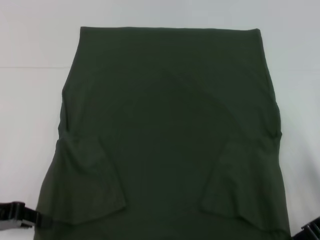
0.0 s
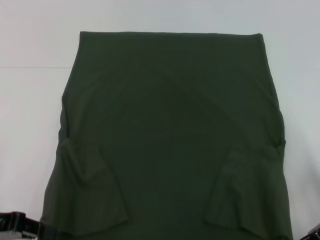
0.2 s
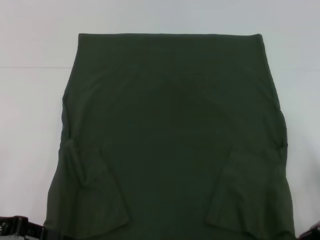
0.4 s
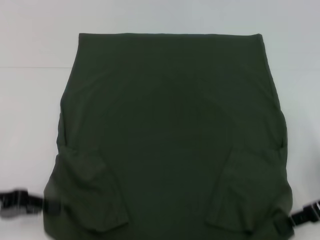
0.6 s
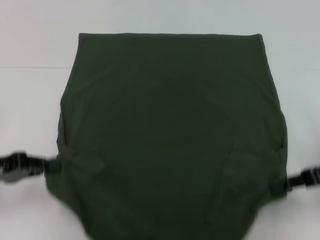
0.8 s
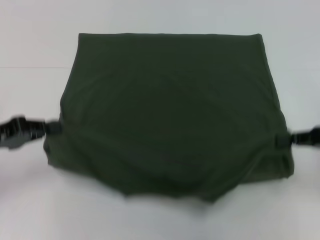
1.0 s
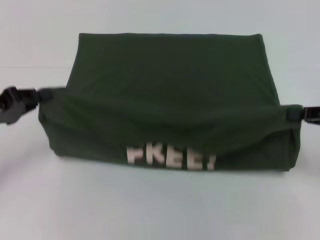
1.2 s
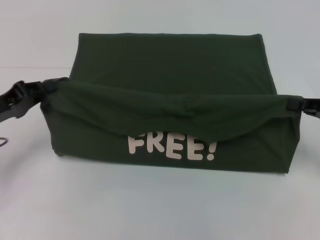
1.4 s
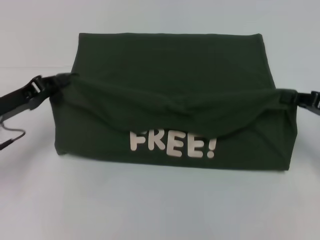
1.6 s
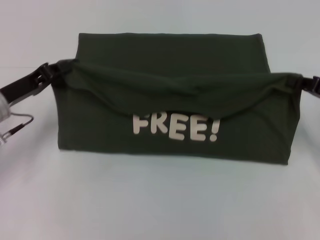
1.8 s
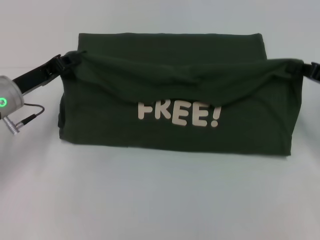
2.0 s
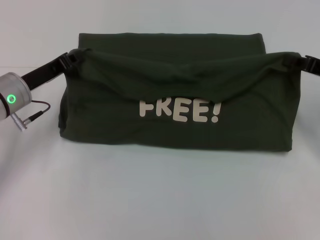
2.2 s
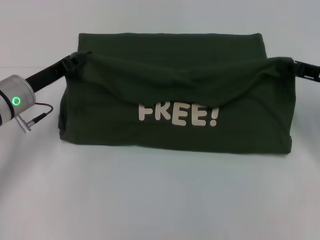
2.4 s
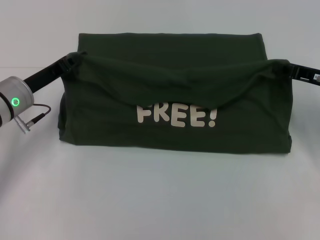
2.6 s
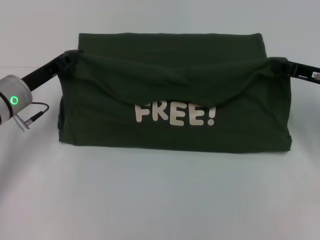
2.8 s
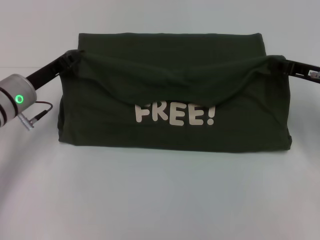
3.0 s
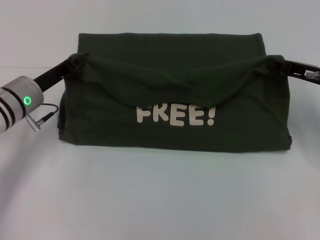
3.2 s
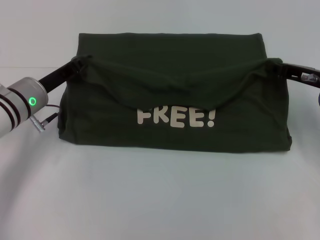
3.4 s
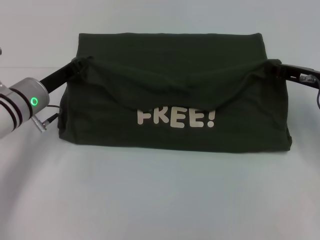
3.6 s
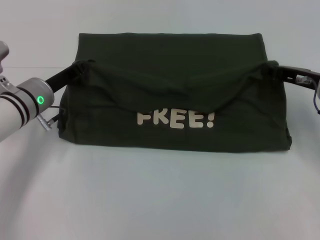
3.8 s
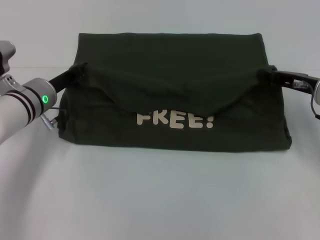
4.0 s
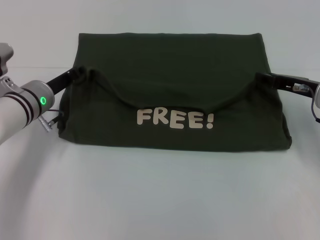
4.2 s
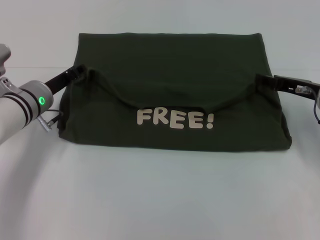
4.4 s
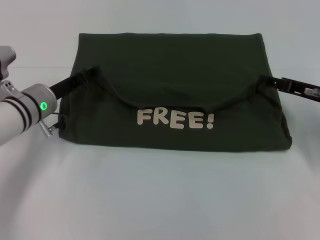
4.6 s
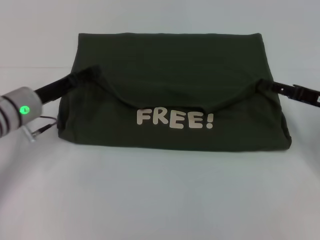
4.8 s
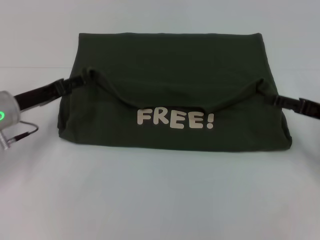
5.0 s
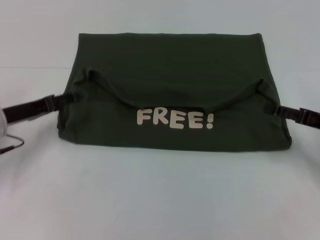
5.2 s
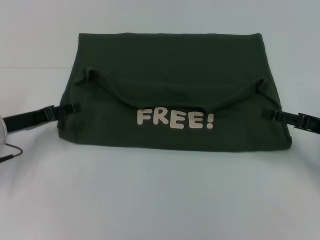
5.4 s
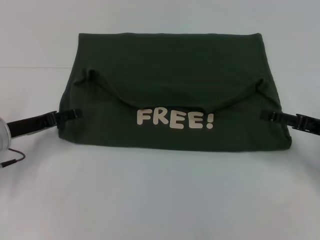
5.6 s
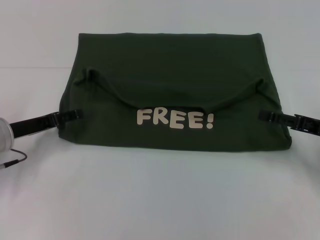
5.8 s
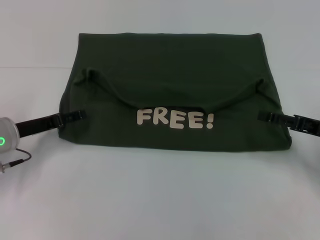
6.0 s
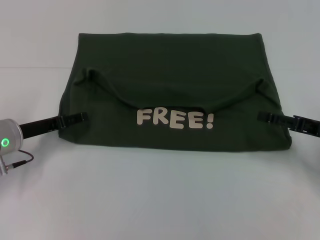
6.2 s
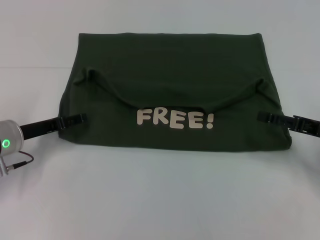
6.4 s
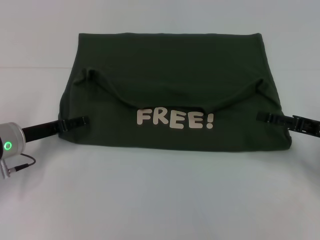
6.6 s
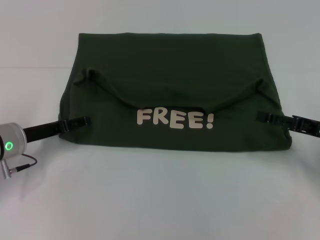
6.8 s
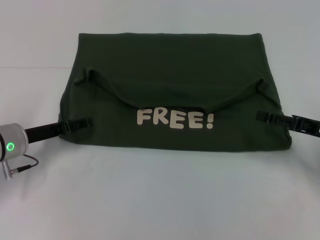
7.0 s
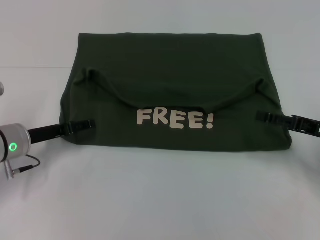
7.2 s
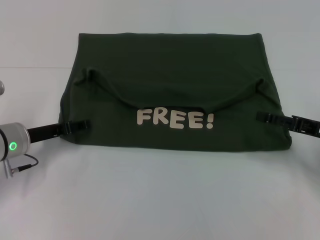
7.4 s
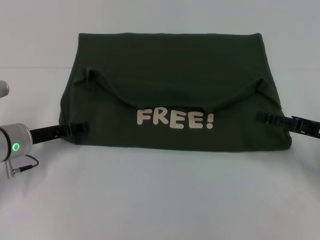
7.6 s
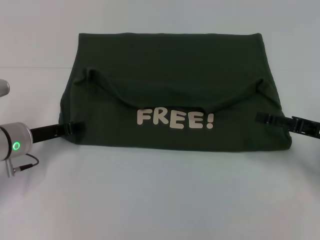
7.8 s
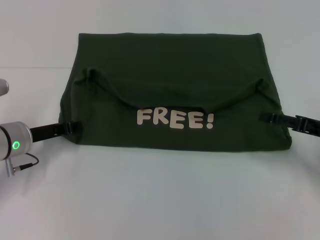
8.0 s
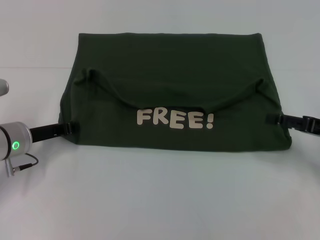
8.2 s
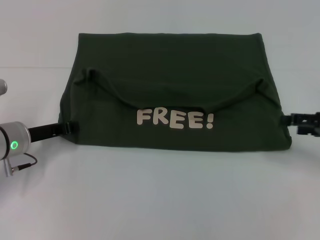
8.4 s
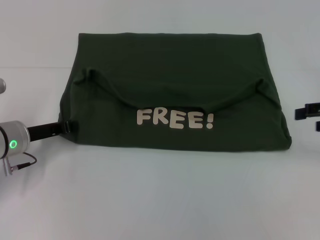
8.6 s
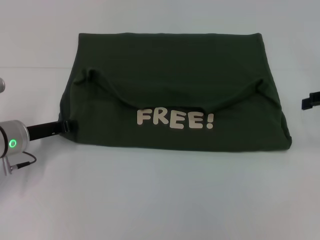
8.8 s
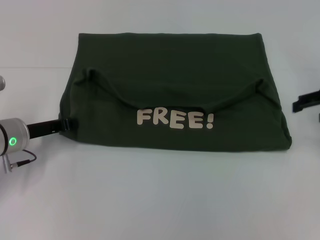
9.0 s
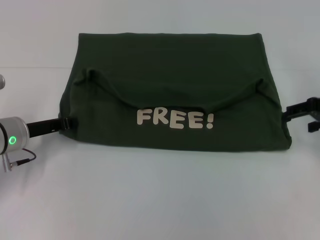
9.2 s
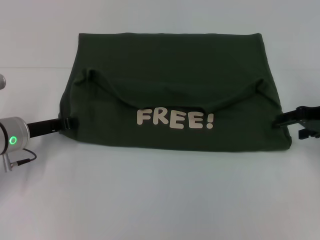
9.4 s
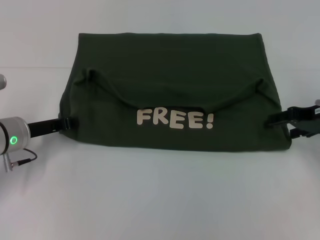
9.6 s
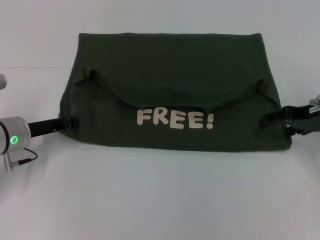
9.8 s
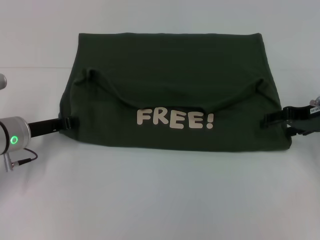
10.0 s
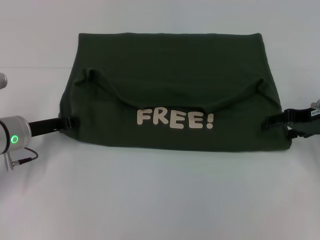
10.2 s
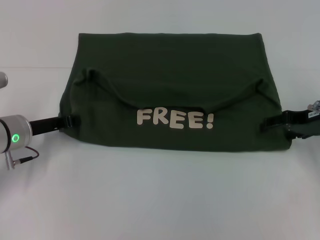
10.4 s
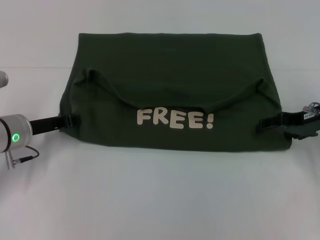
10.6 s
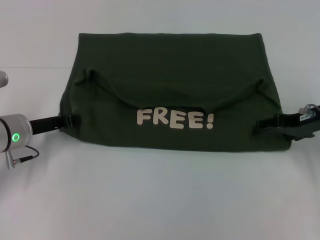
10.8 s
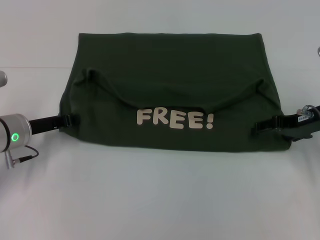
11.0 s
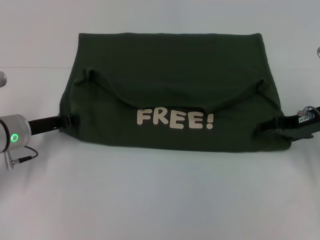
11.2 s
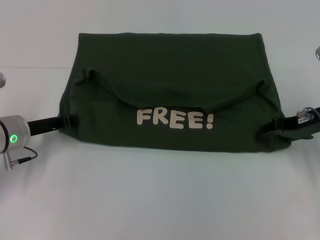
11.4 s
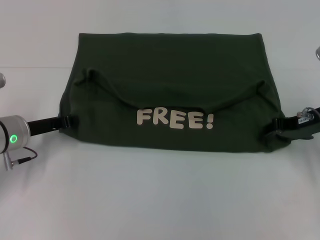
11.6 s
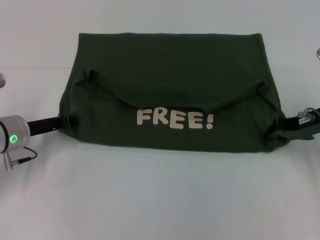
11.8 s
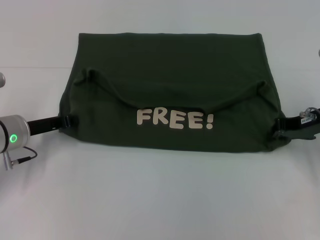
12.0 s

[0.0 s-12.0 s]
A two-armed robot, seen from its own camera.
Step, 0.0 to 4.2 s: Fold the clothes with your left hand.
Step, 0.0 to 4.2 s: Fold the clothes with your right hand.
0.0 to 1.6 s: The right gripper shifts by about 5 cm, while the left gripper shifts approximately 10 cm forward.
1.6 to 3.0 s: Both grippers move forward, about 5 cm.
3.0 to 4.4 s: The left gripper opens. Meanwhile the right gripper opens up.
4.4 to 6.0 s: The left gripper shifts about 10 cm to the left and backward, and opens its fingers. Meanwhile the right gripper moves backward, approximately 5 cm, and opens.
6.0 to 7.6 s: There are only small adjustments of the grippers.
7.6 to 9.0 s: The right gripper travels upward and forward by about 10 cm. Meanwhile the left gripper closes.
9.0 to 10.4 s: The right gripper shifts approximately 5 cm downward.
10.4 to 12.0 s: The right gripper closes its fingers.

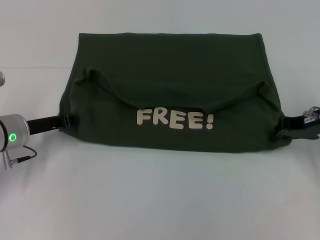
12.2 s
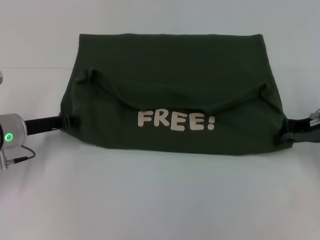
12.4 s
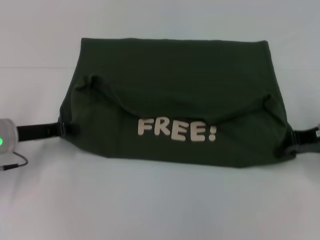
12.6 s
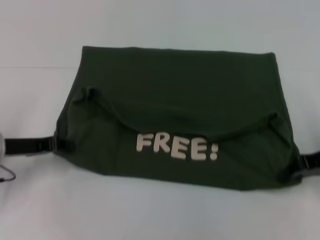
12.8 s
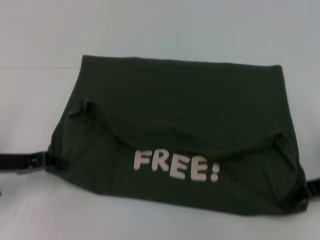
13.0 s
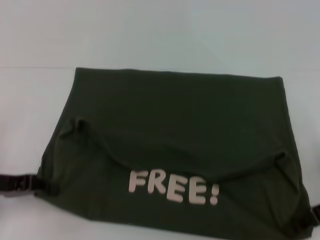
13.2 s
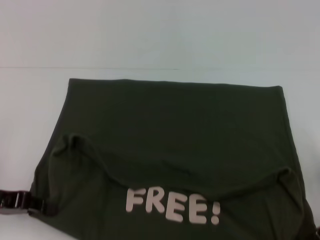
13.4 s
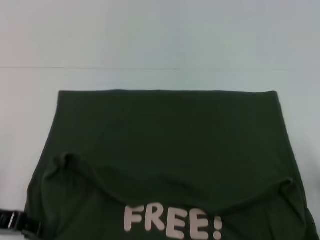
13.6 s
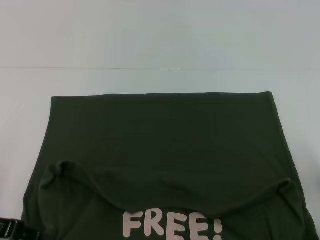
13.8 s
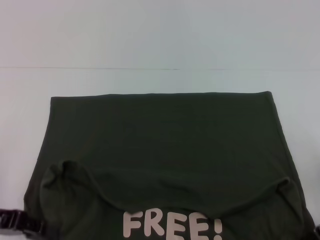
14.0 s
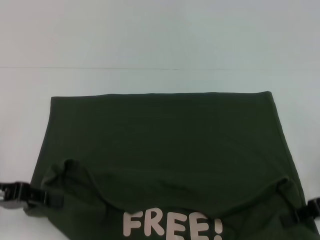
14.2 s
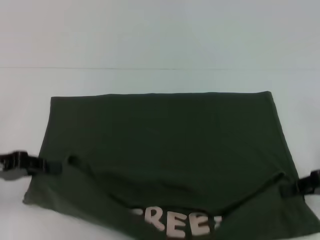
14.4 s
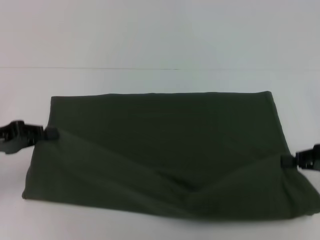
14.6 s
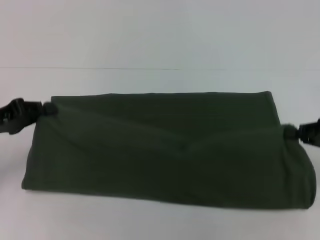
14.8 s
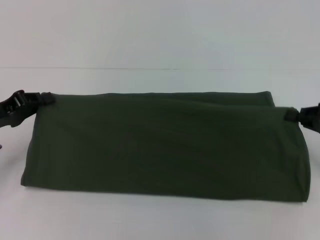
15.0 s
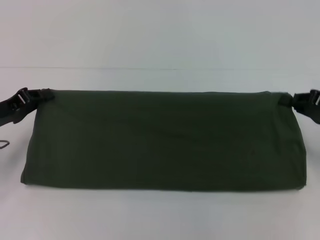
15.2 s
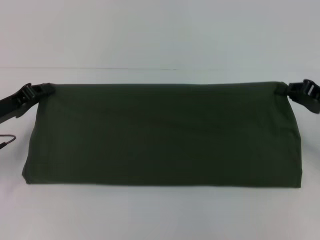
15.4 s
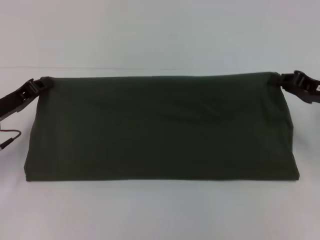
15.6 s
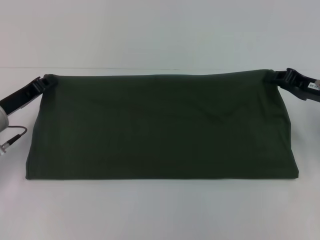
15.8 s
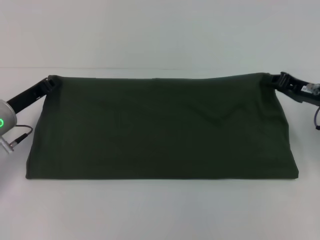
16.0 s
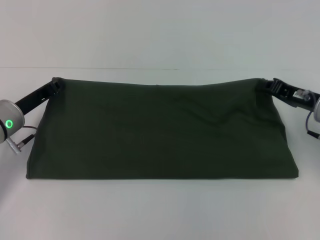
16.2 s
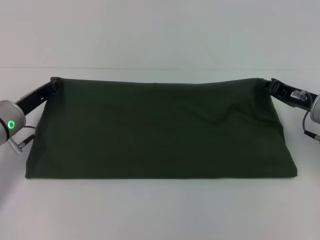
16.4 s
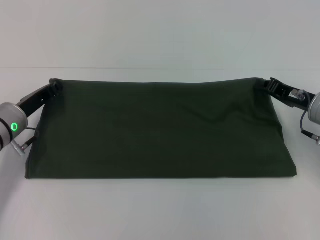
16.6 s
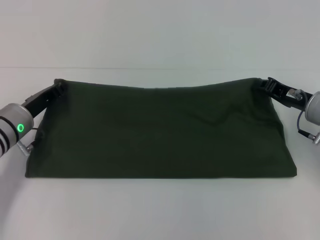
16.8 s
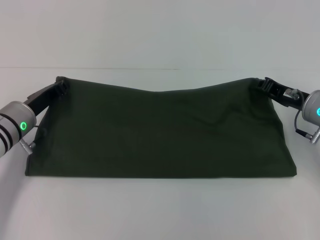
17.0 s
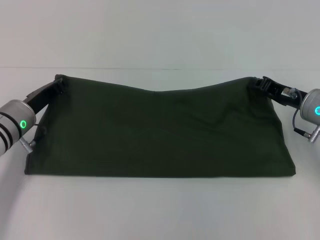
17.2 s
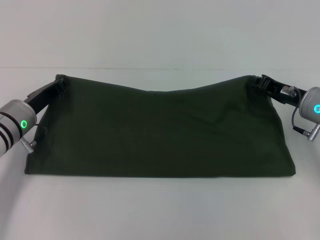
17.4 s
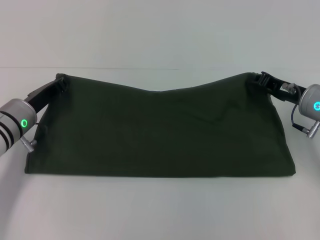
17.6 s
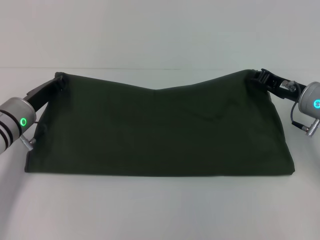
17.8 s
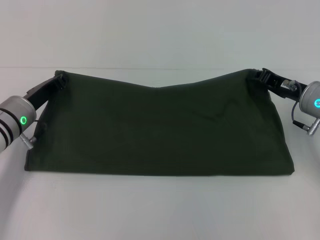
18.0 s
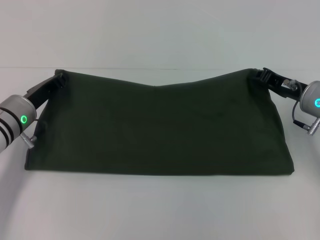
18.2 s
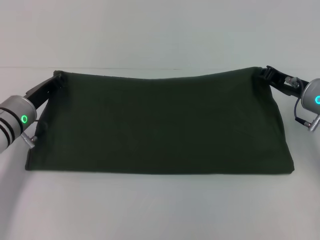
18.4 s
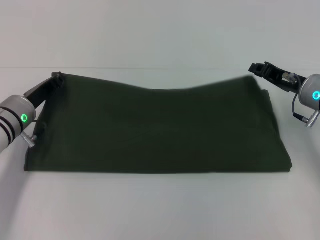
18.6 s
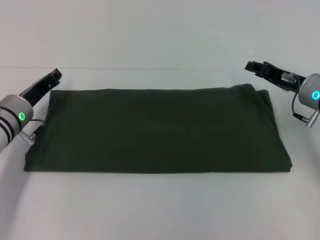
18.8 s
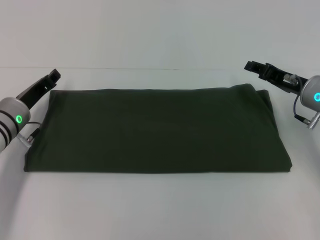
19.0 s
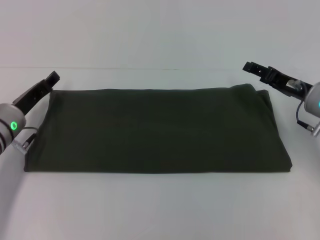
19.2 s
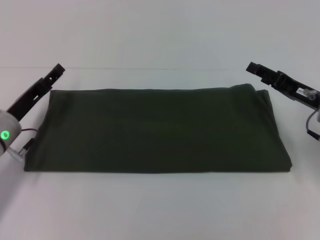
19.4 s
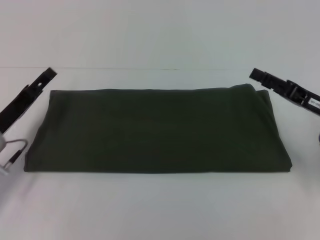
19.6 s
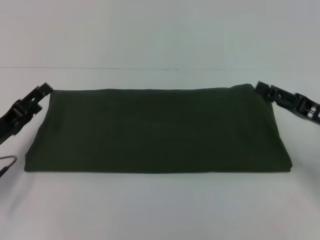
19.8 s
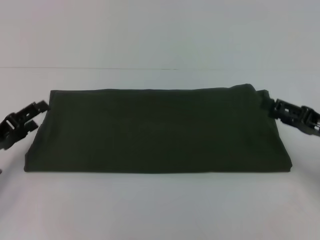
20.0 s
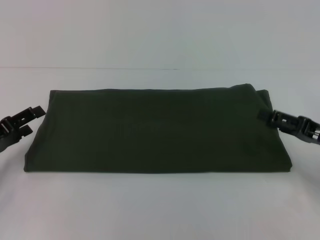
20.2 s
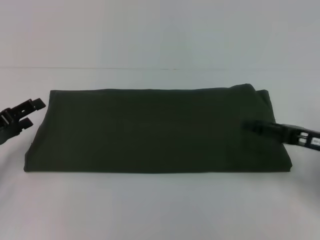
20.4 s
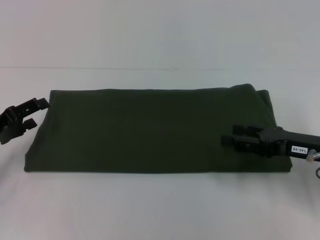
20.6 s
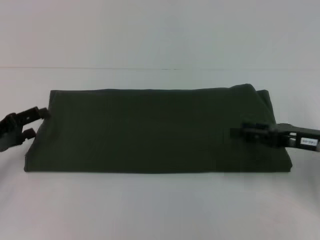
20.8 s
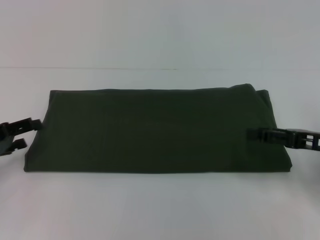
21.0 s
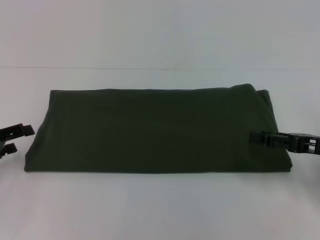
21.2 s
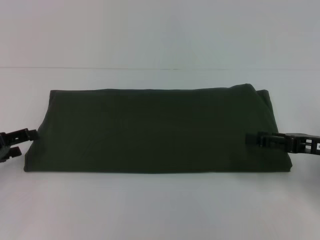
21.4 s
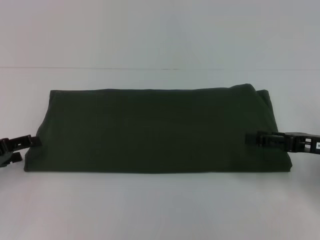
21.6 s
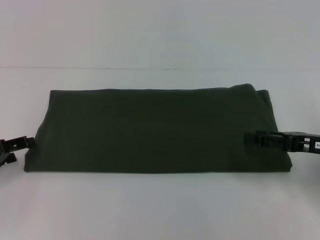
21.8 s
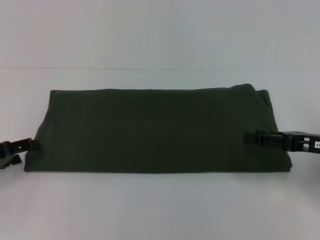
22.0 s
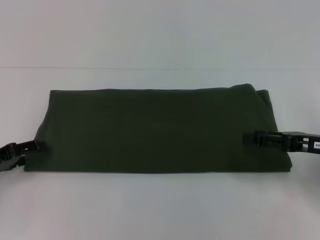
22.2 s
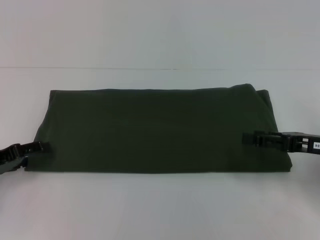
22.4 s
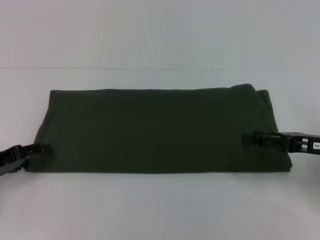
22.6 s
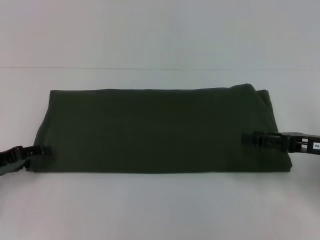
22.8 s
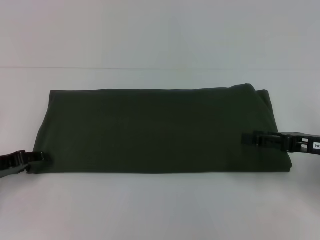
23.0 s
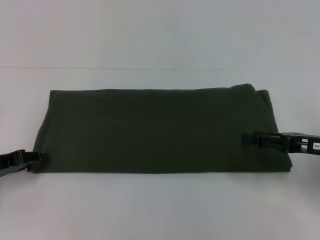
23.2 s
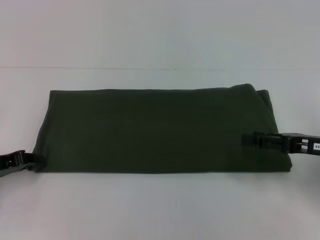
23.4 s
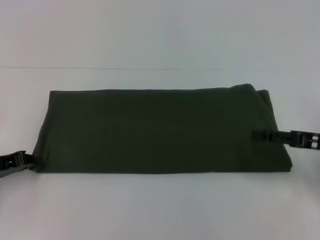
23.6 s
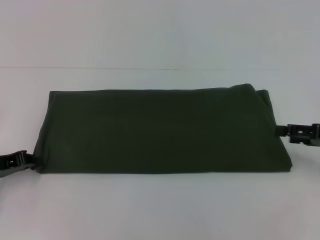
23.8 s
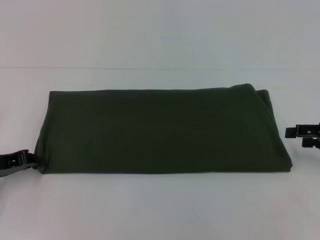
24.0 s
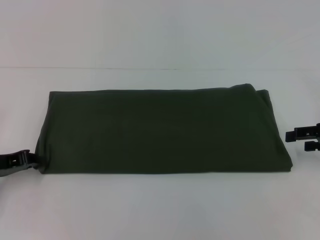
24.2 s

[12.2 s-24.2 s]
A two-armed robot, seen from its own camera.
Step, 14.0 to 18.6 s: Fold the clothes with your right hand.
12.2 to 13.8 s: The left gripper goes approximately 15 cm backward and to the left; the right gripper moves backward, approximately 10 cm.
13.8 to 15.2 s: Both grippers travel together forward, about 10 cm.
15.2 to 16.6 s: The right gripper travels to the left by some 5 cm. Meanwhile the left gripper shifts some 5 cm to the right.
16.6 to 18.2 s: The grippers stay close to where they were, moving slightly.
18.2 to 19.8 s: The left gripper travels backward and to the left by approximately 10 cm, and opens. Meanwhile the right gripper travels backward by roughly 10 cm, and opens.
19.8 to 21.2 s: The left gripper is displaced to the left by about 5 cm.
21.2 to 22.6 s: The grippers stay close to where they were, moving slightly.
22.6 to 24.2 s: The right gripper ends up some 5 cm from where it was. The left gripper closes its fingers.
